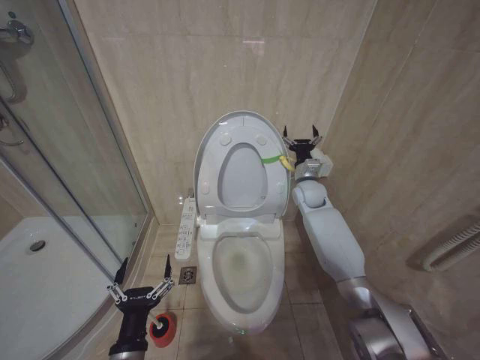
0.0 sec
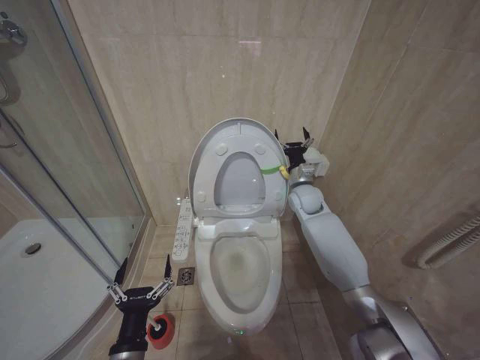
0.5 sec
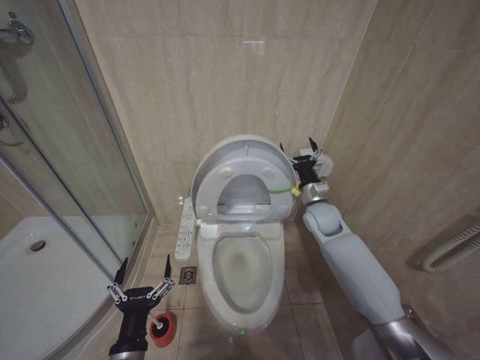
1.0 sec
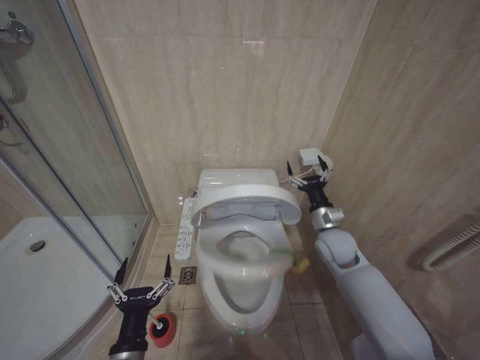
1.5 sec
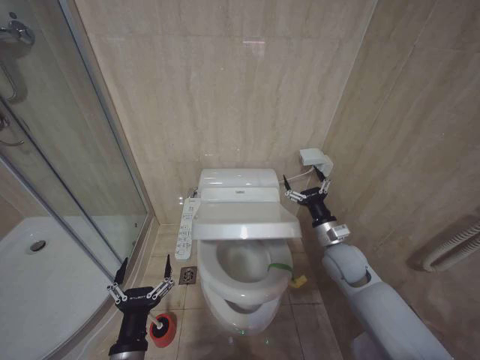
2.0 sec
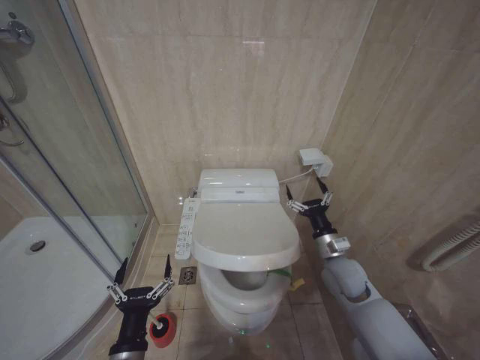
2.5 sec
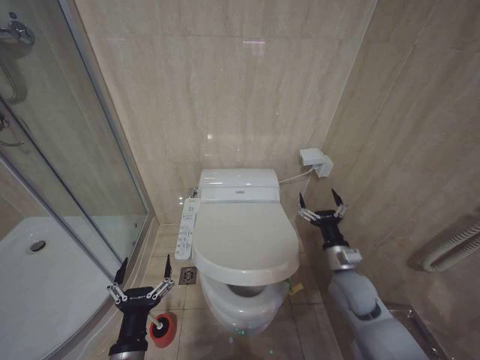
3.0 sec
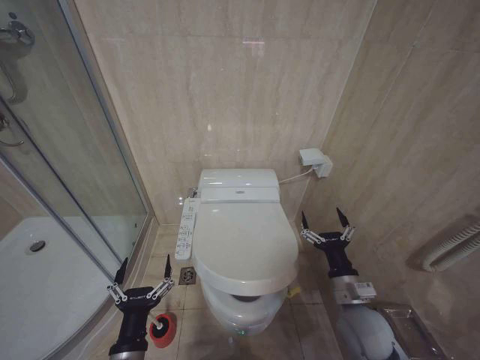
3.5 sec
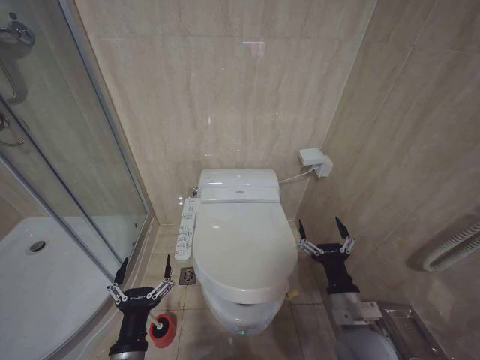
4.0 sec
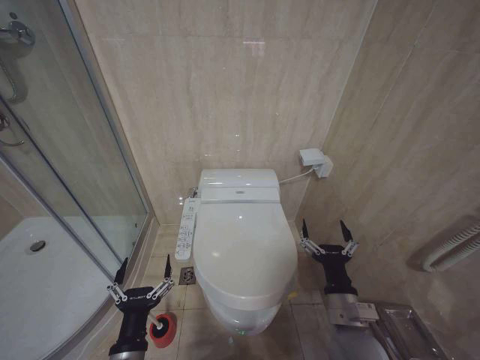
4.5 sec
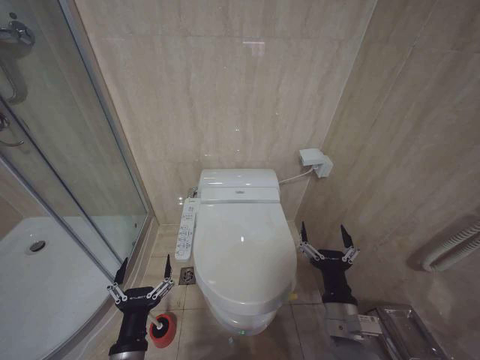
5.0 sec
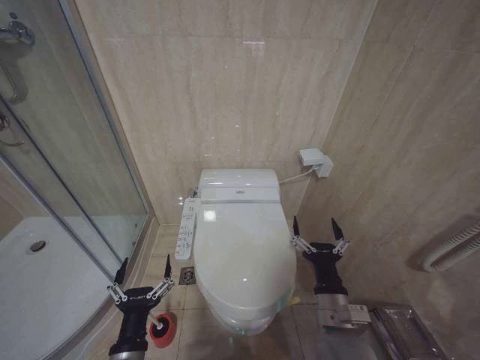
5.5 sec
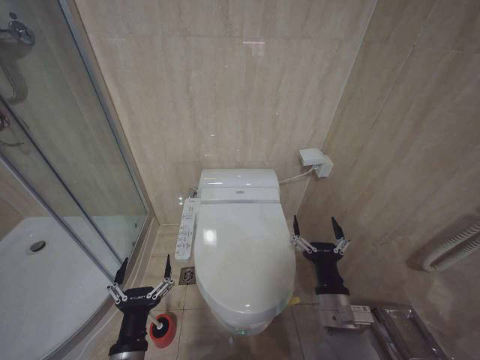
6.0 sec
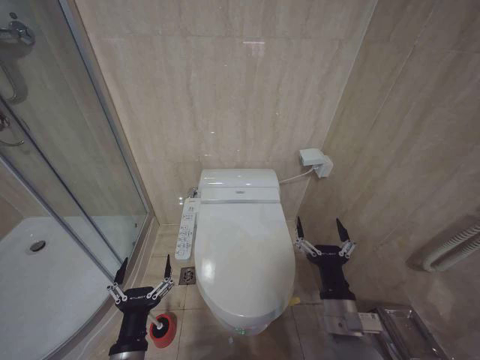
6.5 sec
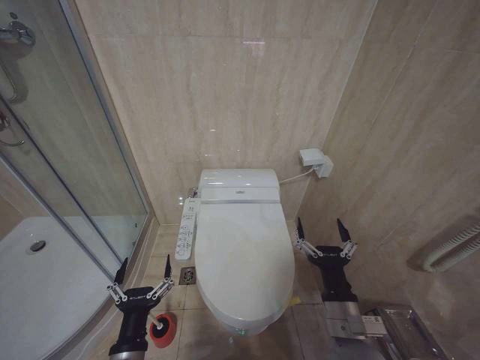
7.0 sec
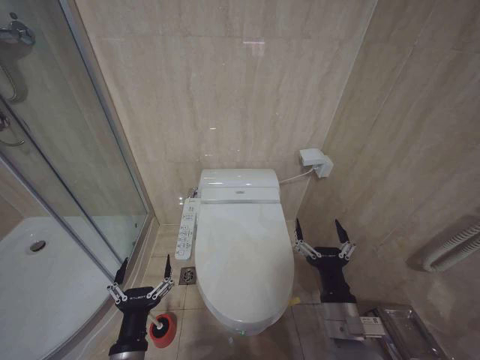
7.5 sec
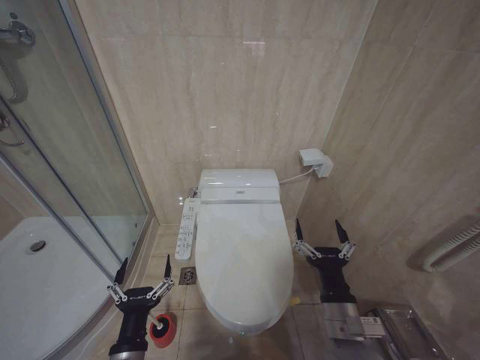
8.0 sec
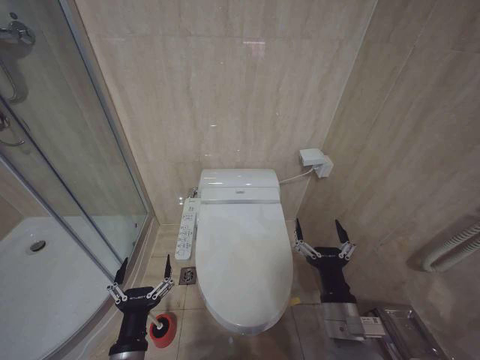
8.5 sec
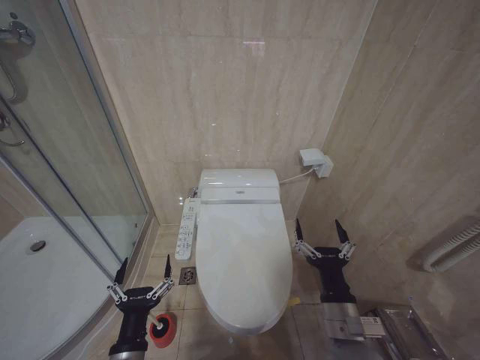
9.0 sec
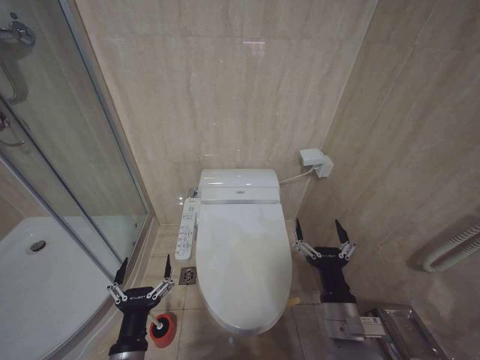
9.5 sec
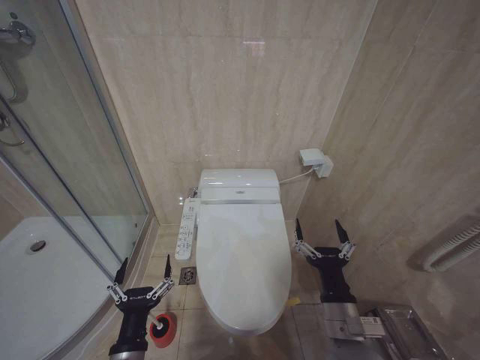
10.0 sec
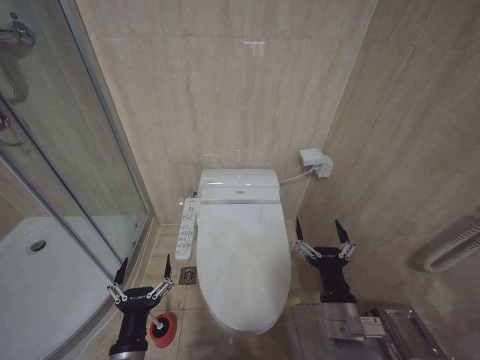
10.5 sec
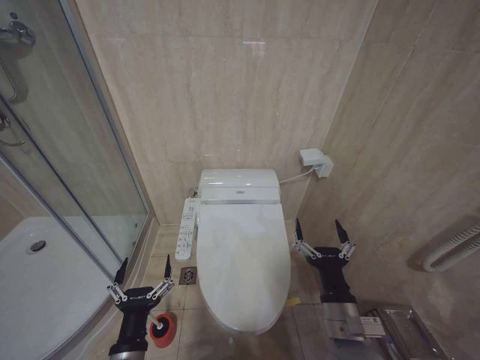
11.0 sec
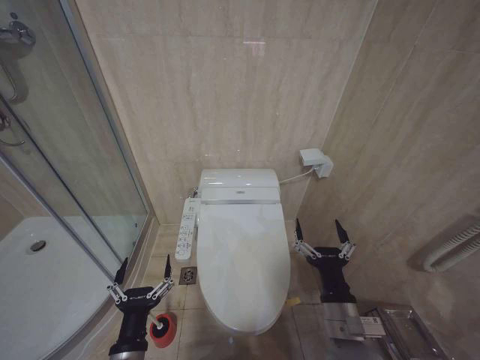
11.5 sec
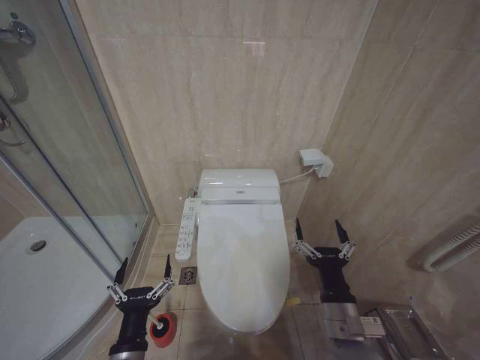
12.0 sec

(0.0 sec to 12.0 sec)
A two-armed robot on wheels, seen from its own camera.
Task of the whole recording: Open the toilet lid, clean the toilet bowl with a toilet brush, close the toilet lid, and flush.
0.0 sec - 2.0 sec: The right gripper moves backward and downward, some 20 cm.
2.0 sec - 4.0 sec: The right gripper travels backward by some 15 cm.
4.0 sec - 8.0 sec: There are only small adjustments of the grippers.
8.0 sec - 12.0 sec: Both grippers stay about where they are.

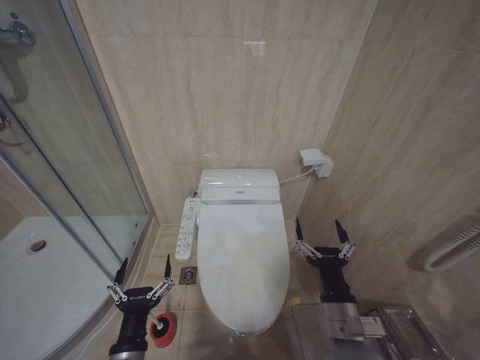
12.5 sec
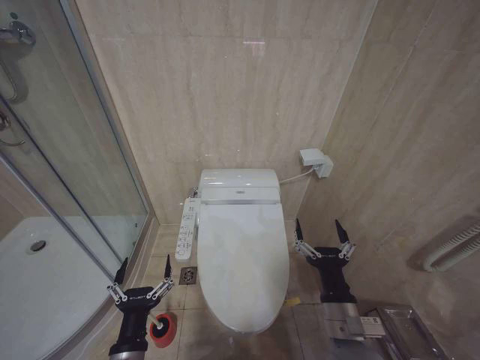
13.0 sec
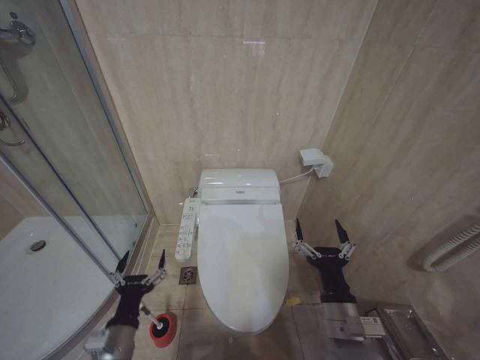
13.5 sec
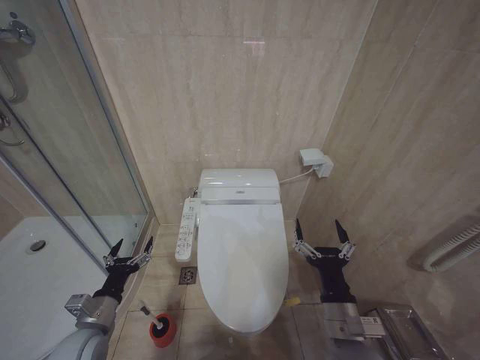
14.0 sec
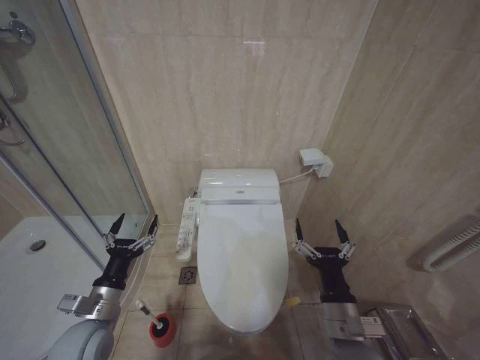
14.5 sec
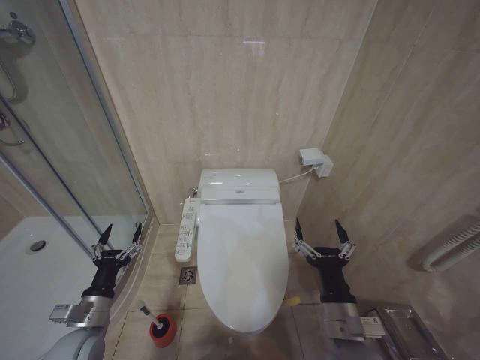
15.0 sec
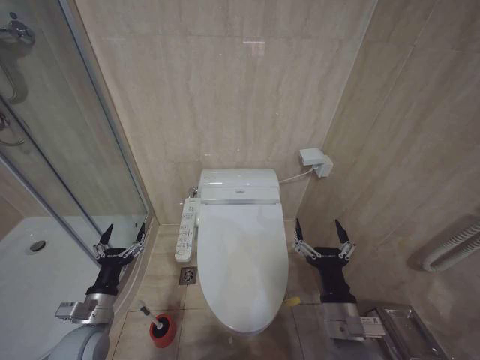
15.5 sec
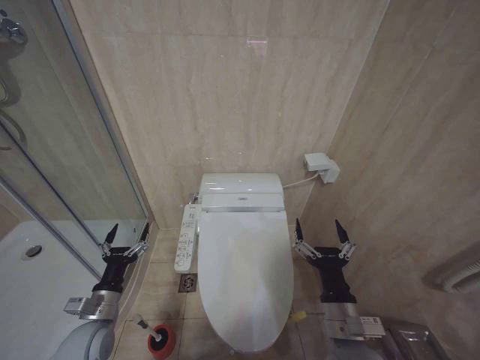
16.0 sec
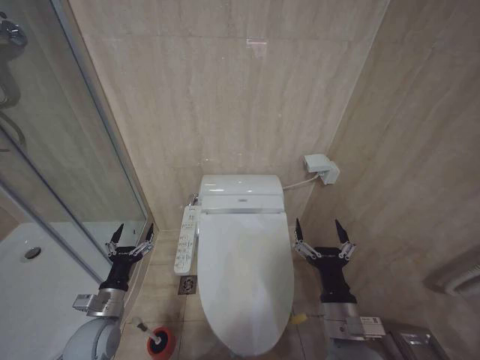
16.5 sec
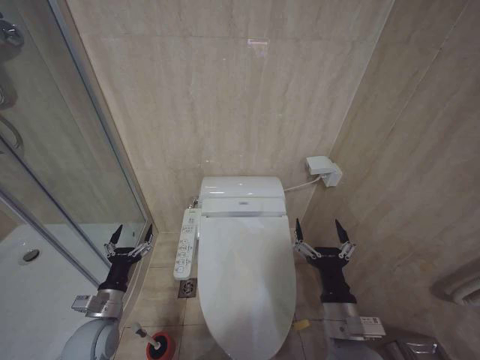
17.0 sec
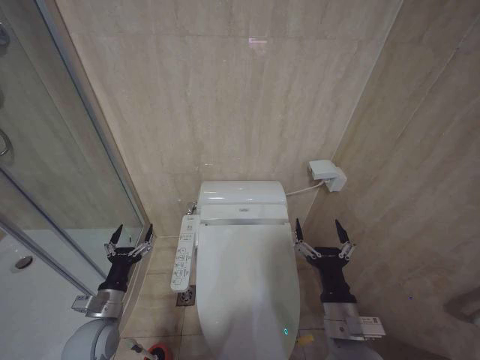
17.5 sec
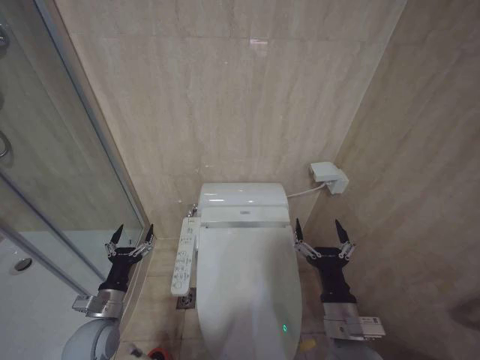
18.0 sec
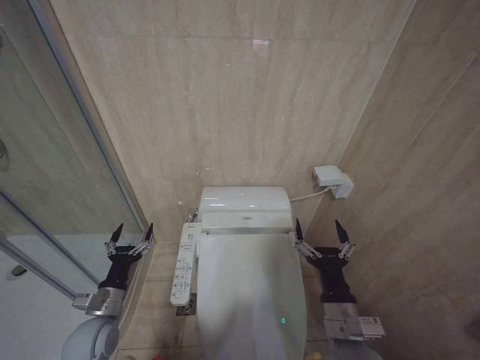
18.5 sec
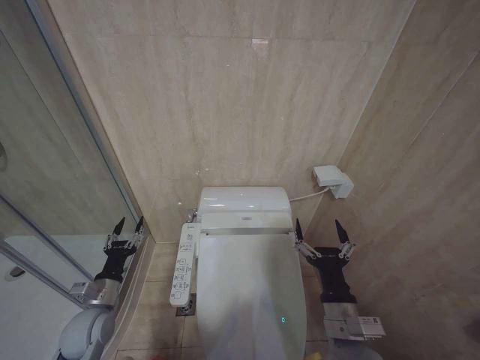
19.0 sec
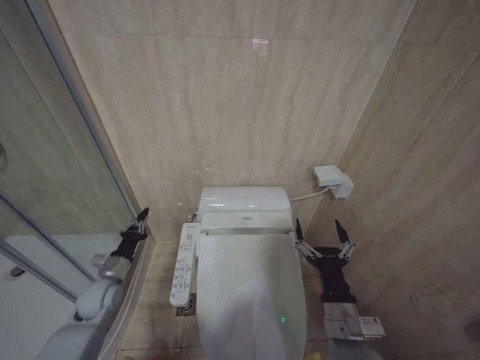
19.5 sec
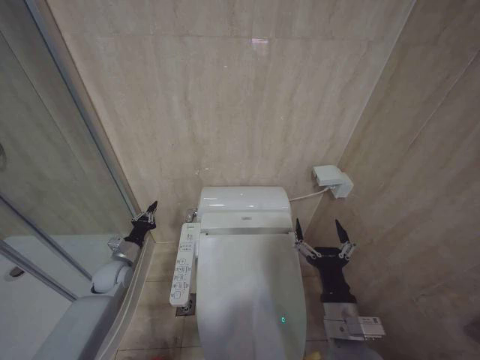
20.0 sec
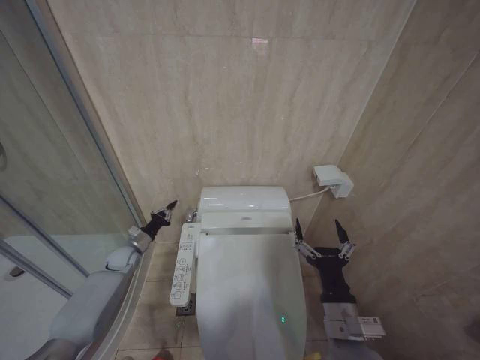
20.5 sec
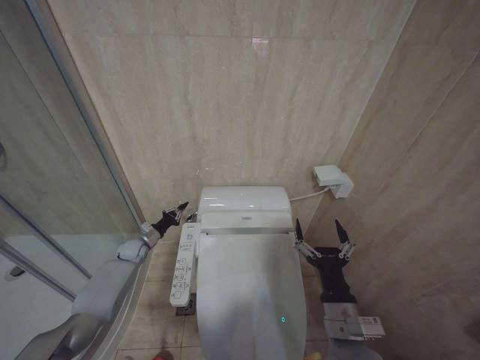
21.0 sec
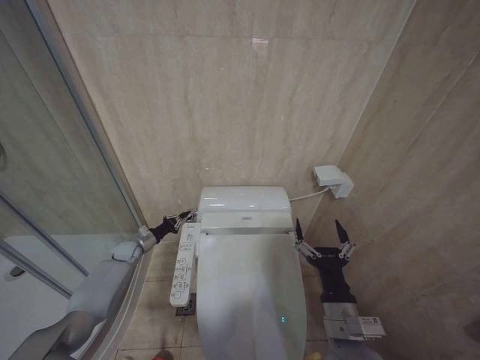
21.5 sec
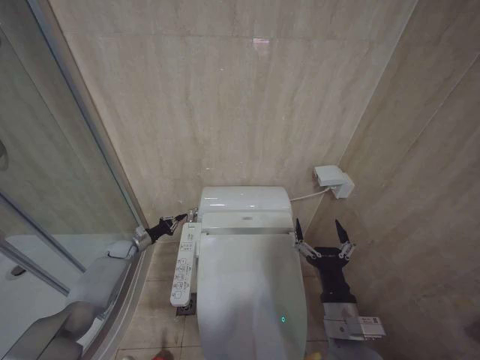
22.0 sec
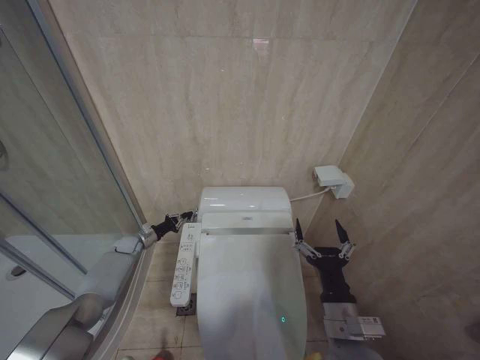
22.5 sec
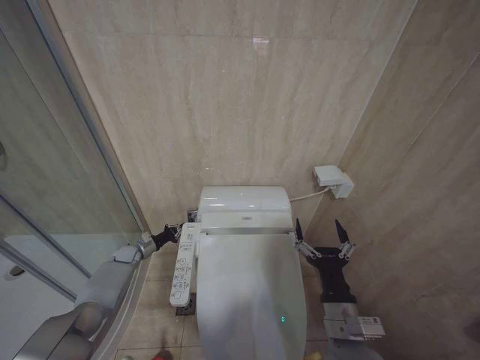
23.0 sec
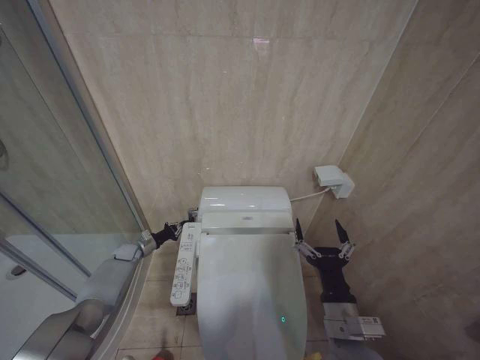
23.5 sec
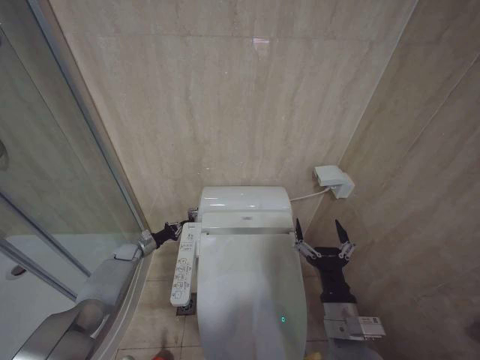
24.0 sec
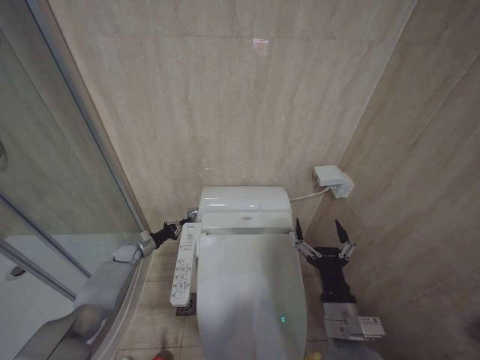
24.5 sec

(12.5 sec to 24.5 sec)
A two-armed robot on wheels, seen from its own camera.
Task of the whole recording: Open the toilet lid, clean the toilet bowl with a toilet brush, close the toilet lid, and flush.
12.5 sec - 14.5 sec: The left gripper is displaced forward and to the left by about 15 cm.
14.5 sec - 16.5 sec: The left gripper moves downward, some 5 cm.
16.5 sec - 18.5 sec: Both grippers stay put.
18.5 sec - 20.5 sec: The left gripper travels forward by about 20 cm, and closes up.
20.5 sec - 22.5 sec: The left gripper moves forward, approximately 5 cm.
22.5 sec - 24.5 sec: The grippers stay close to where they were, moving slightly.

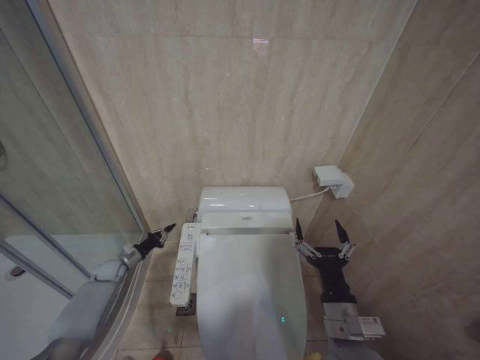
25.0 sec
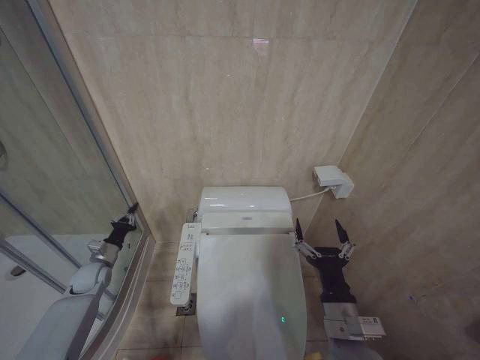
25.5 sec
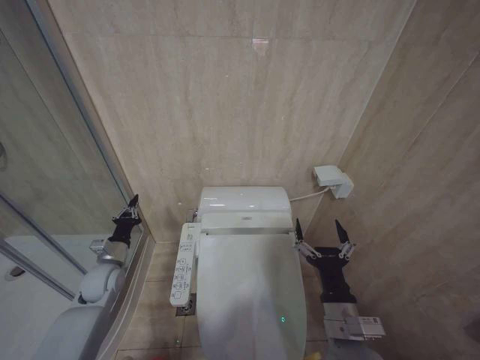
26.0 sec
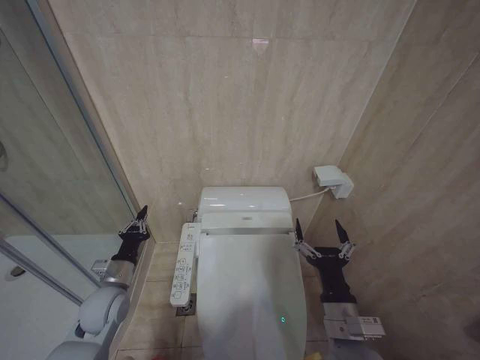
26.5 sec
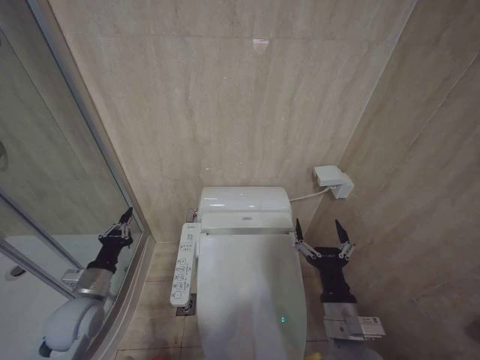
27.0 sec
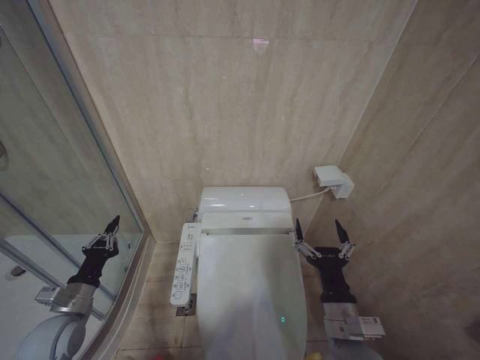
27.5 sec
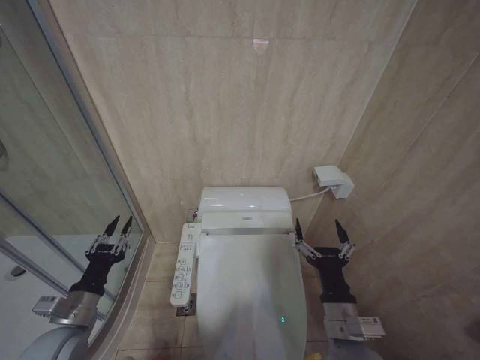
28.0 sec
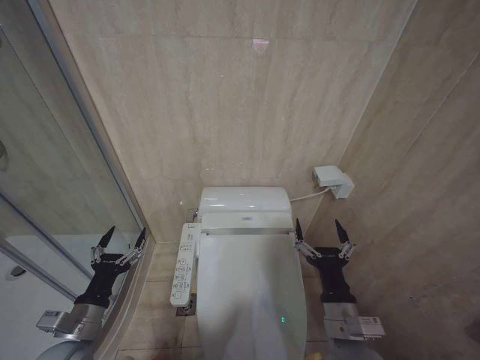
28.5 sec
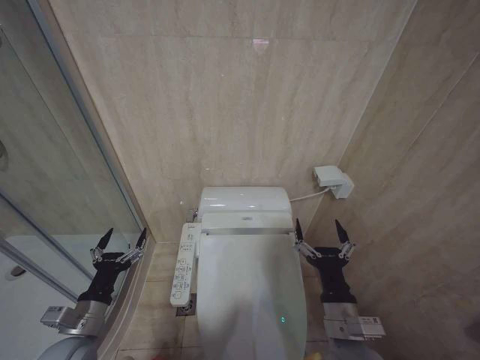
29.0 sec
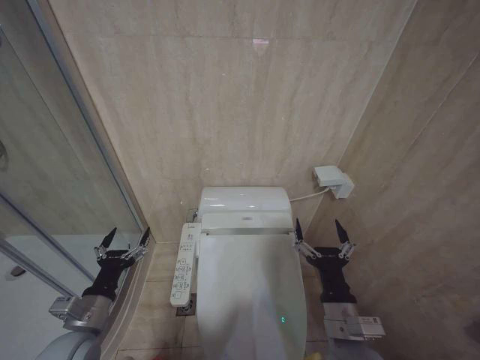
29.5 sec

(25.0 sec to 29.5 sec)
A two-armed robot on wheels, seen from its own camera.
Task of the whole recording: Open the toilet lid, clean the toilet bowl with a toilet brush, close the toilet lid, and flush.
25.0 sec - 27.0 sec: The left gripper heads backward and upward, covering some 25 cm.
27.0 sec - 29.5 sec: The left gripper goes some 5 cm backward, and opens up.
